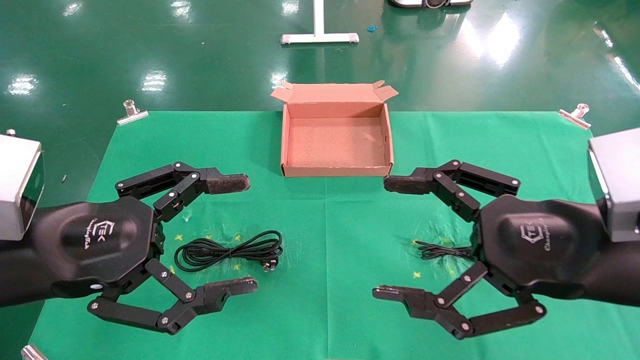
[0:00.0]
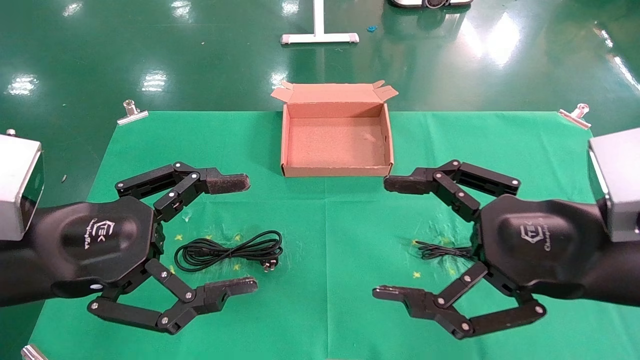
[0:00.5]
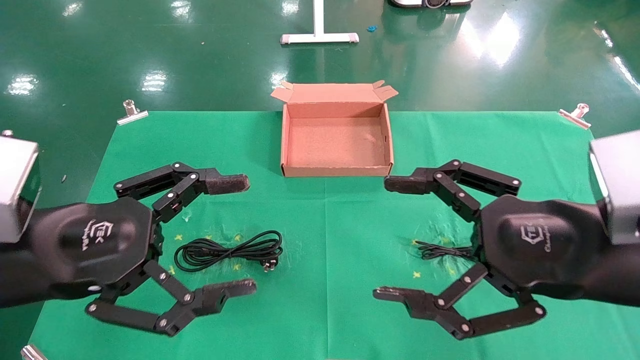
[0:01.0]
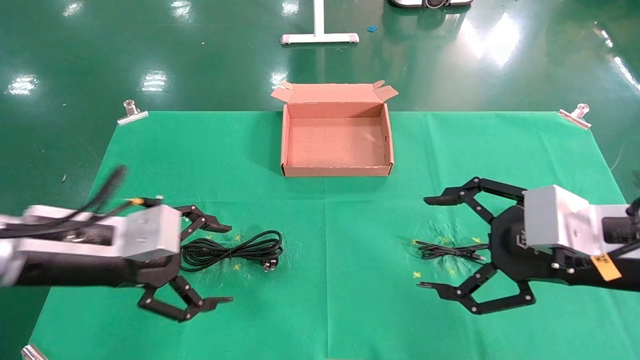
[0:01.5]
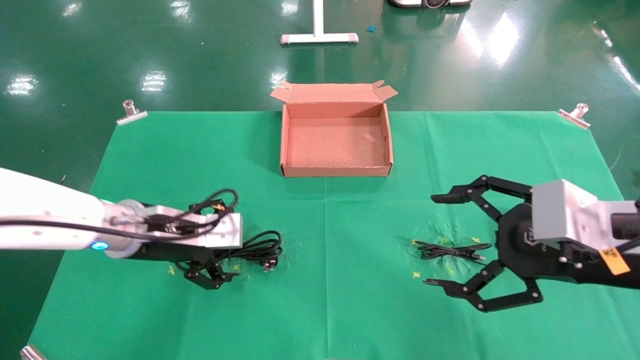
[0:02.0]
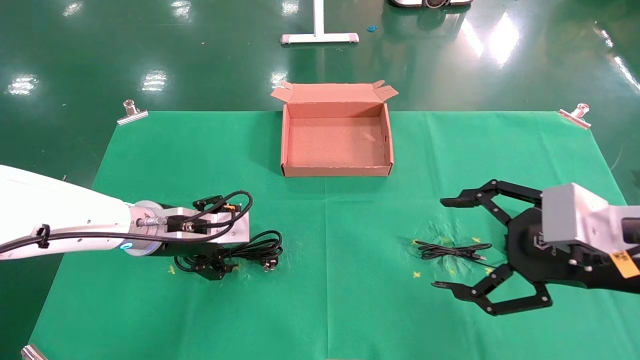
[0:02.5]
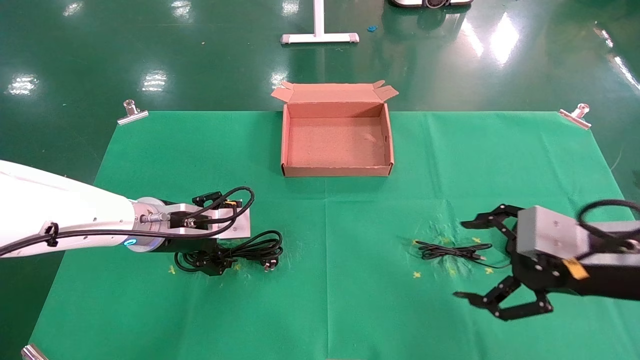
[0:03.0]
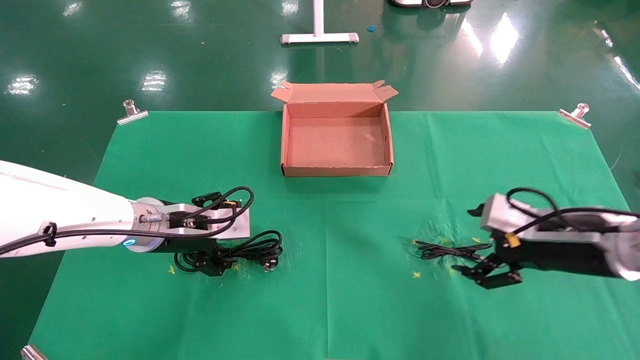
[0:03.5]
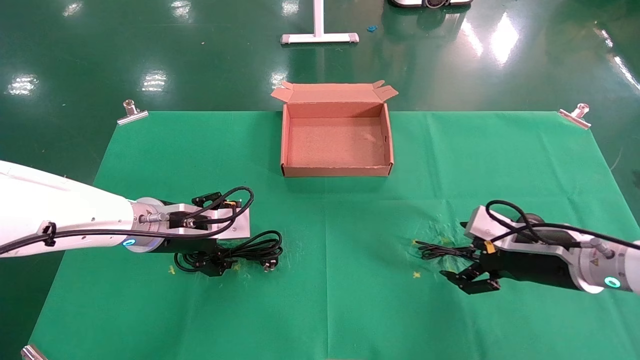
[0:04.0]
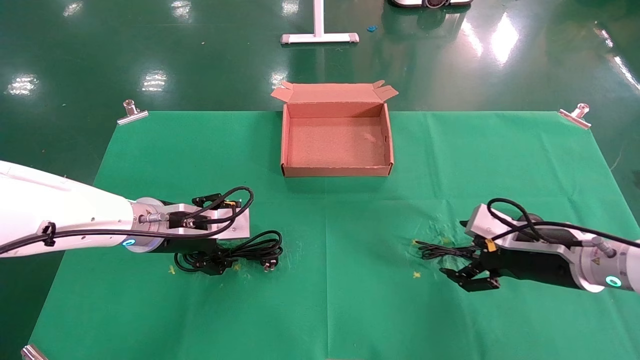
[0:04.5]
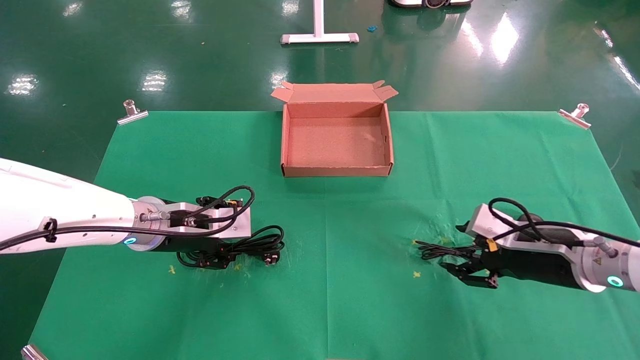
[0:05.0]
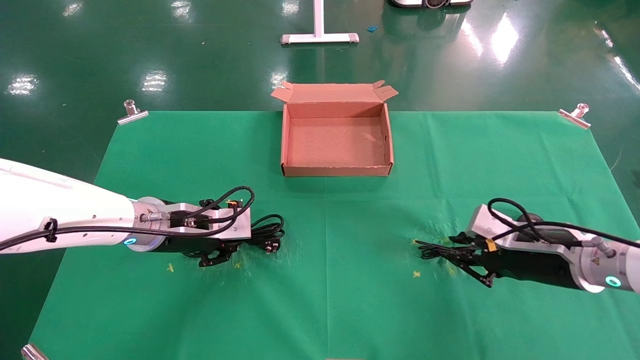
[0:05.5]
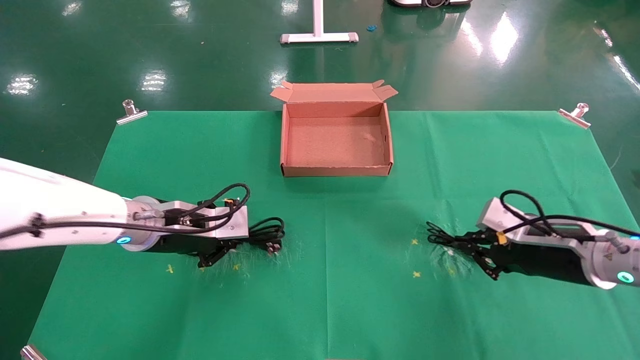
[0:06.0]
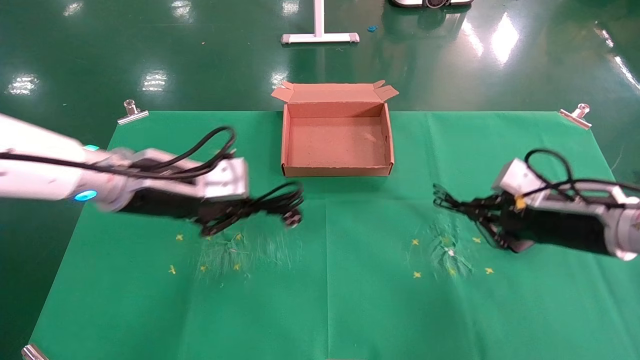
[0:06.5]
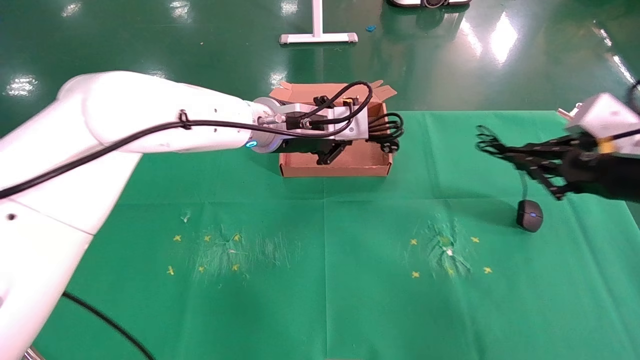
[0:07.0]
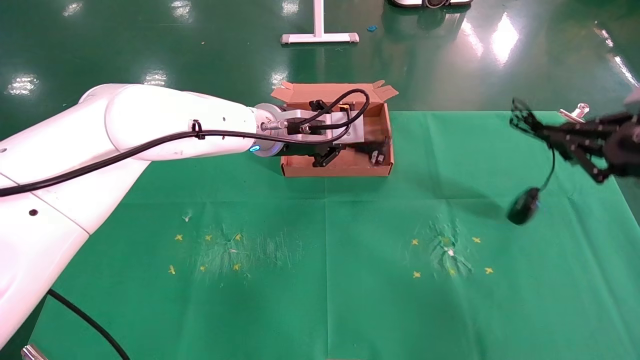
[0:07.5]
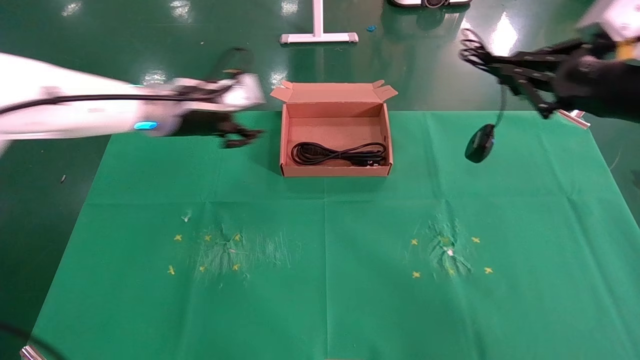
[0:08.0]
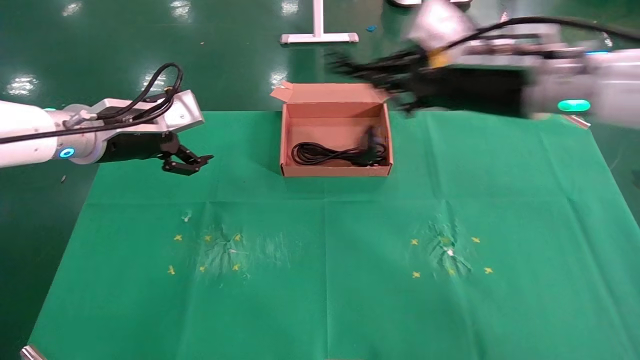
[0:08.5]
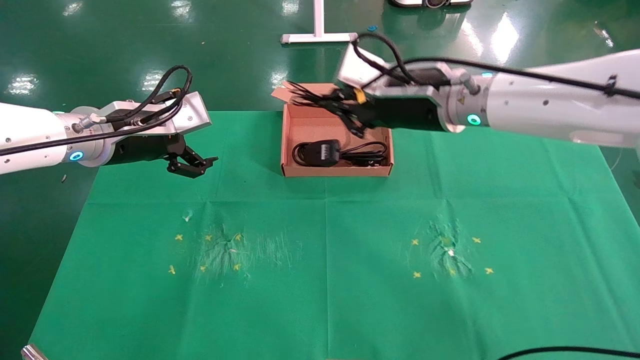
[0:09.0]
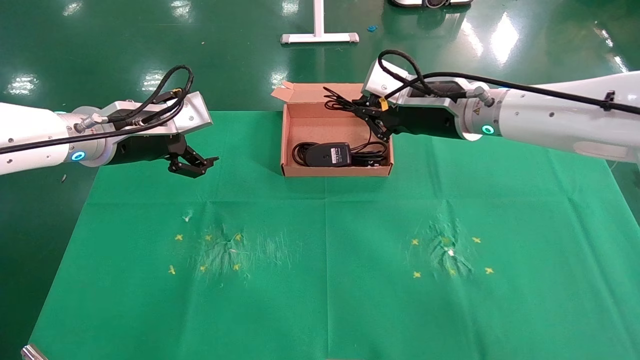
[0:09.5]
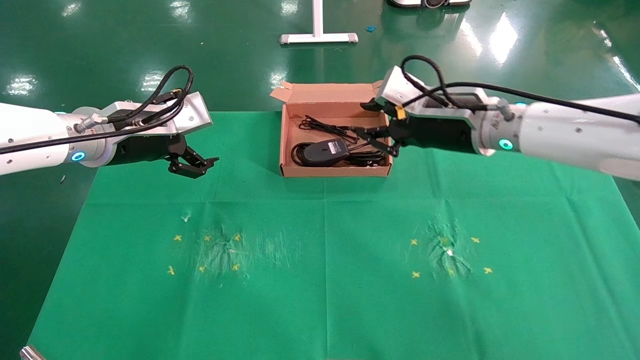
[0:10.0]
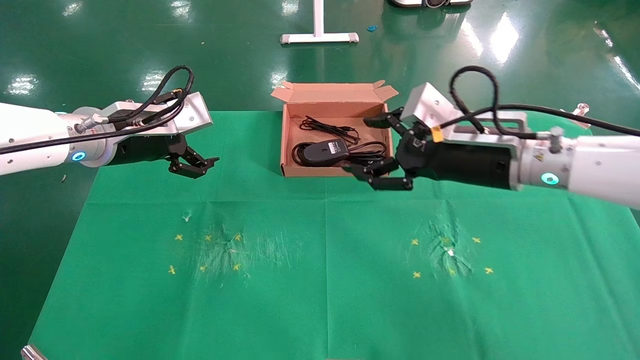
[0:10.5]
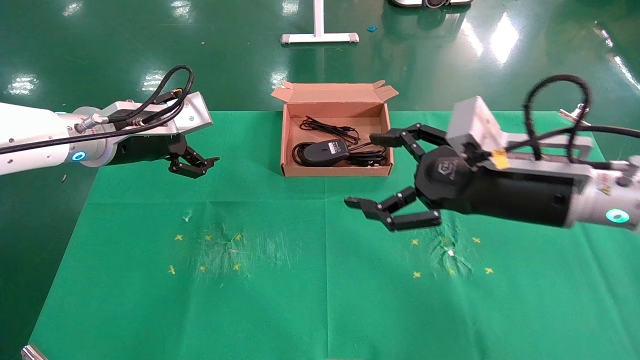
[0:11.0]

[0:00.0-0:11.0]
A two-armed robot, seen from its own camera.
Task of the whole recording: grasp data cable left put into box grasp mouse right put into box.
Step, 0:01.5 to 0:06.0: Simultaneously pick up the mouse and power cord from the accessory packaging area.
Step, 0:06.5 to 0:09.5: Place the mouse and power cord into the box.
0:00.0 to 0:02.0: The left gripper moves forward and downward, roughly 15 cm.
0:02.0 to 0:03.5: The right gripper is displaced forward and downward by some 10 cm.
0:03.5 to 0:05.5: The left gripper closes, while the right gripper closes its fingers.
0:05.5 to 0:07.5: The right gripper moves upward, to the right and backward, roughly 20 cm, and closes. The left gripper heads to the right, upward and forward, covering about 20 cm.
0:07.5 to 0:09.0: The right gripper moves to the left and forward, roughly 30 cm; the left gripper shifts about 20 cm to the left, and opens.
0:09.0 to 0:11.0: The right gripper goes approximately 15 cm backward, to the right and downward, and opens its fingers.

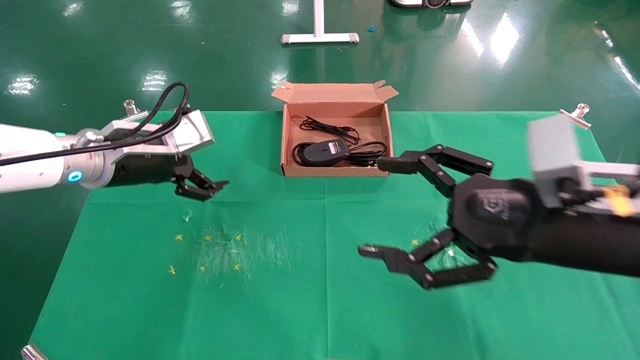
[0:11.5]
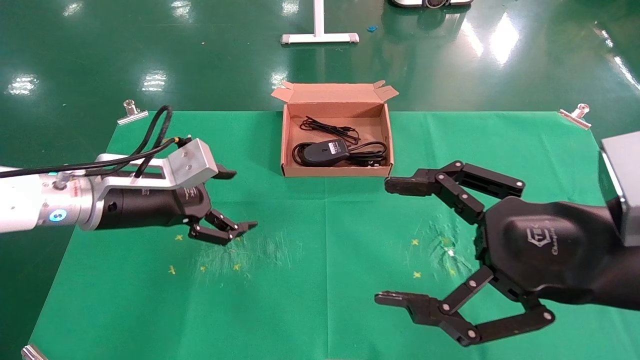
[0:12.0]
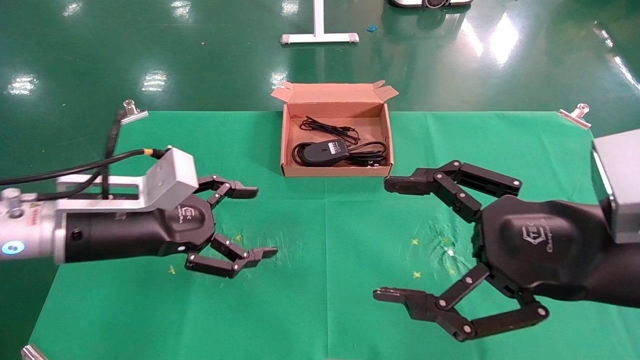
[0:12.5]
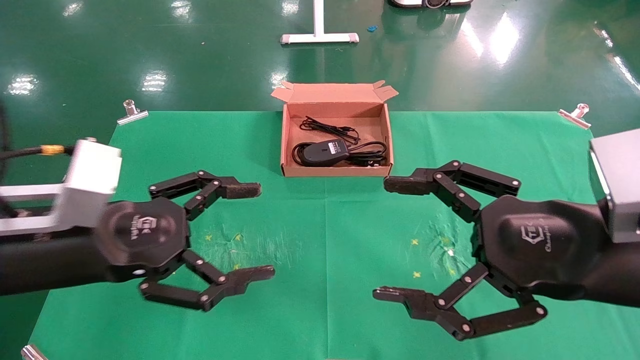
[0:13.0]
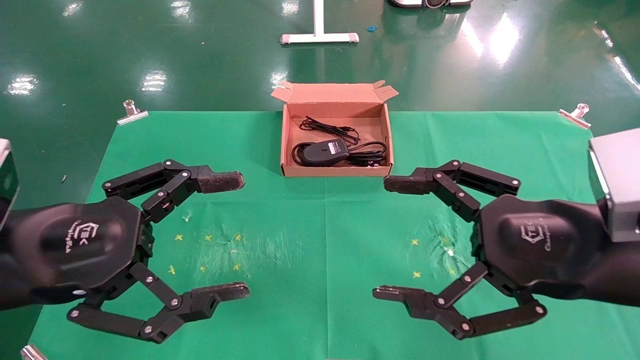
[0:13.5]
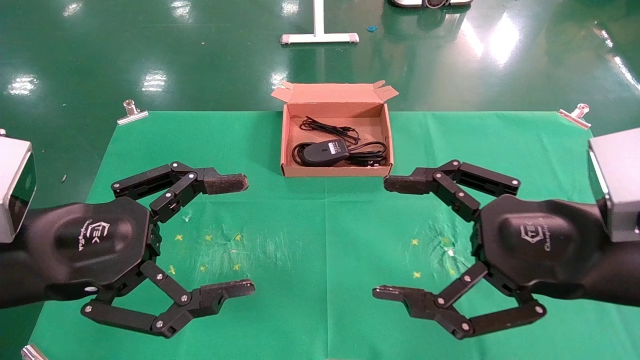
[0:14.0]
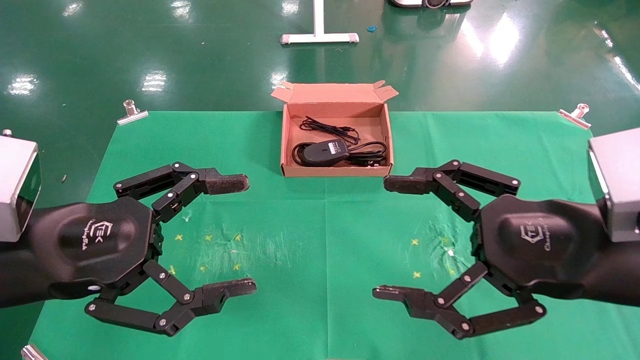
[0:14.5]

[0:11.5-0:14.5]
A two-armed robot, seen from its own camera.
Task of the whole recording: grasp data cable left put into box grasp mouse right put into box.
0:11.5 to 0:13.0: The left gripper moves backward, some 15 cm.
0:13.0 to 0:14.5: The grippers make only small movements.
